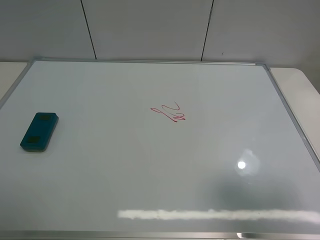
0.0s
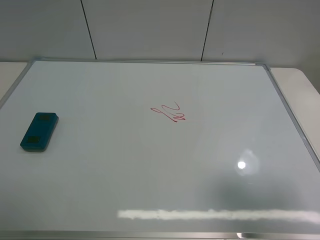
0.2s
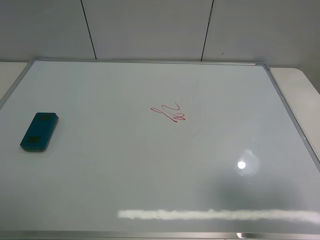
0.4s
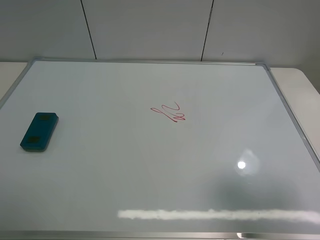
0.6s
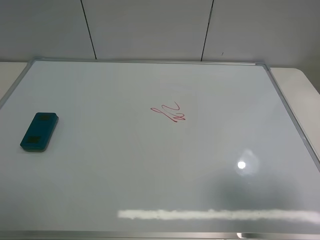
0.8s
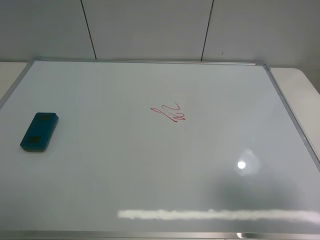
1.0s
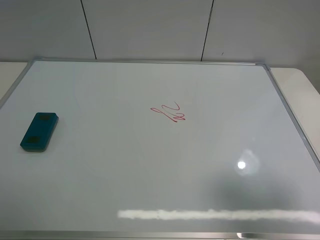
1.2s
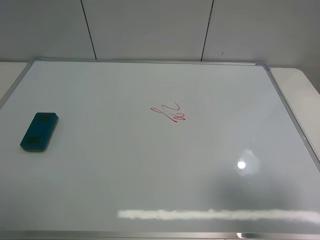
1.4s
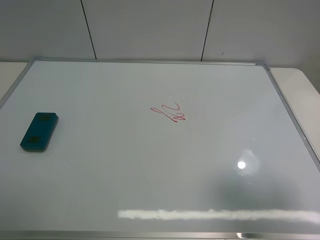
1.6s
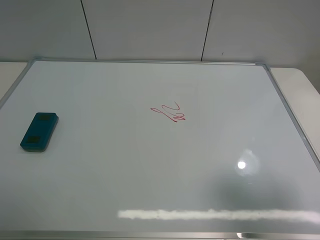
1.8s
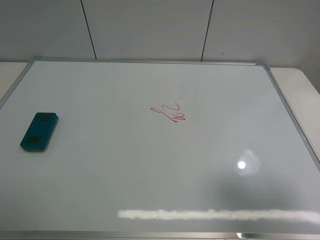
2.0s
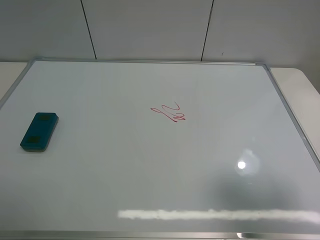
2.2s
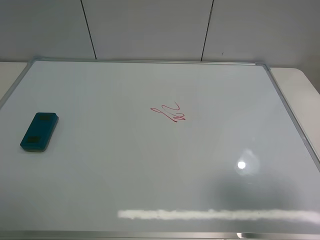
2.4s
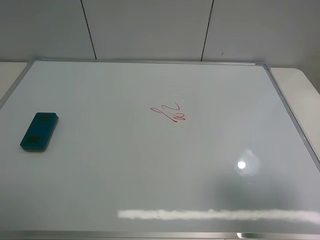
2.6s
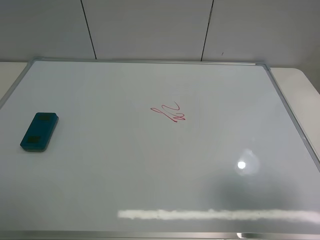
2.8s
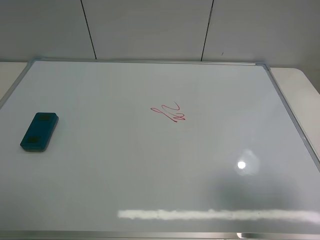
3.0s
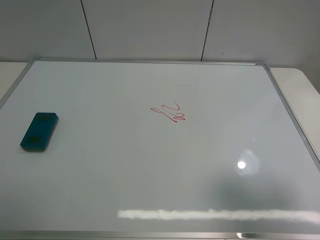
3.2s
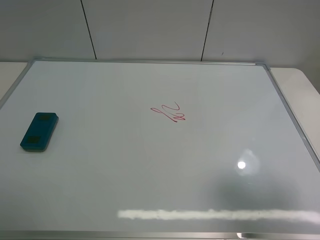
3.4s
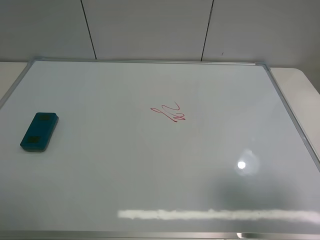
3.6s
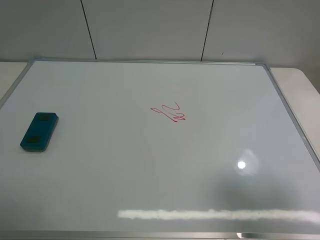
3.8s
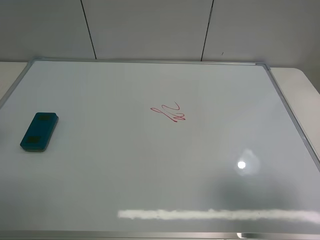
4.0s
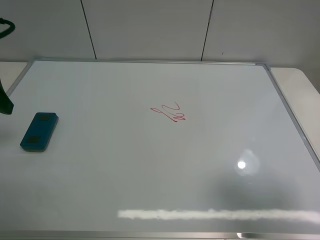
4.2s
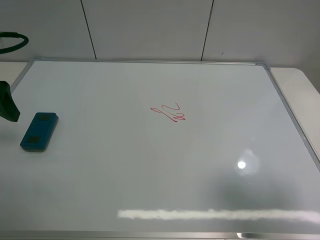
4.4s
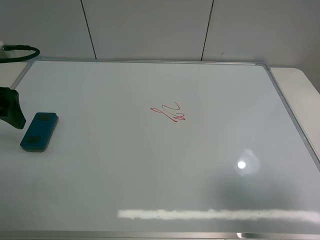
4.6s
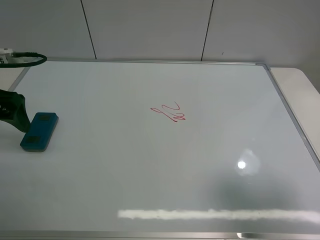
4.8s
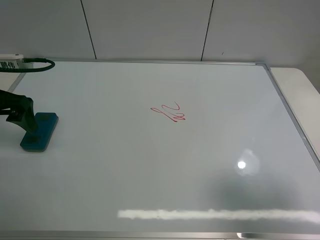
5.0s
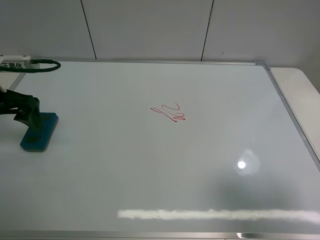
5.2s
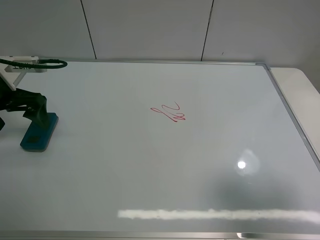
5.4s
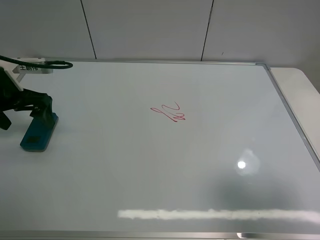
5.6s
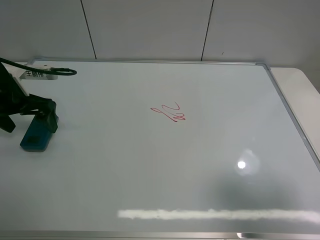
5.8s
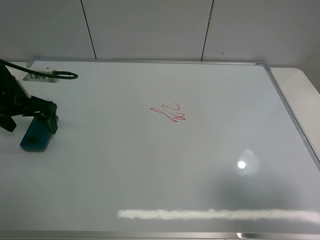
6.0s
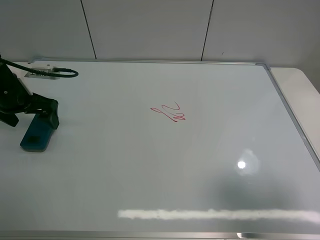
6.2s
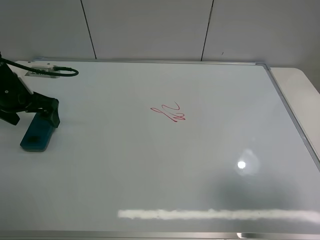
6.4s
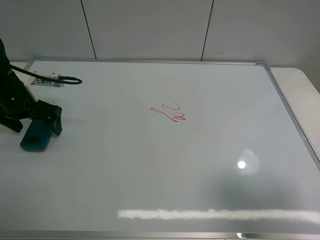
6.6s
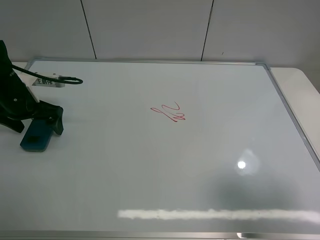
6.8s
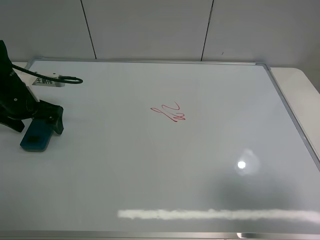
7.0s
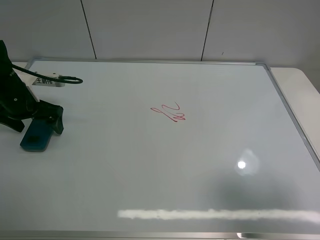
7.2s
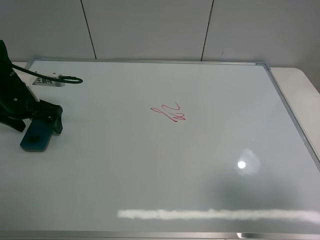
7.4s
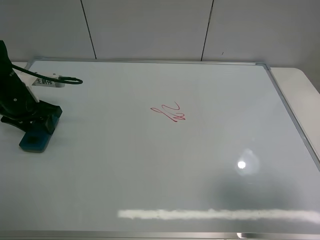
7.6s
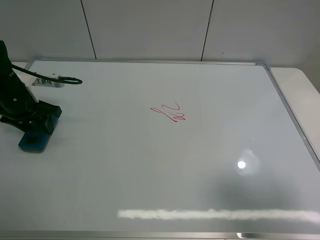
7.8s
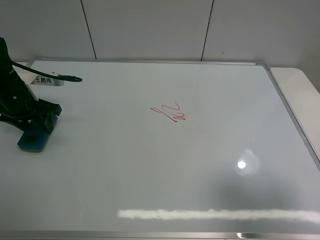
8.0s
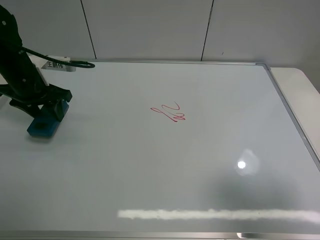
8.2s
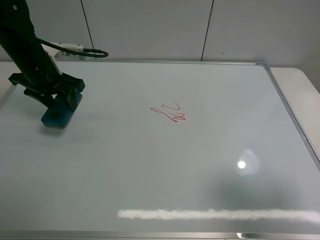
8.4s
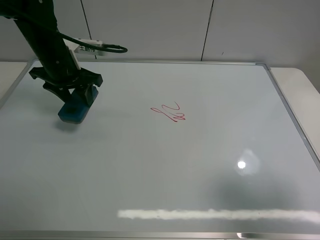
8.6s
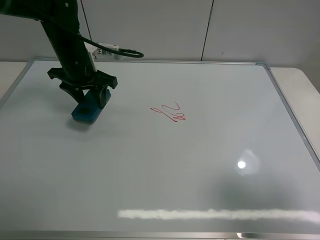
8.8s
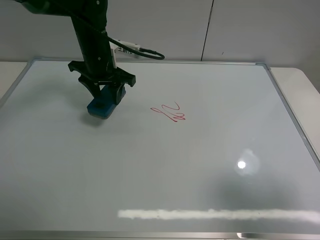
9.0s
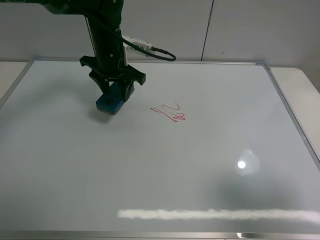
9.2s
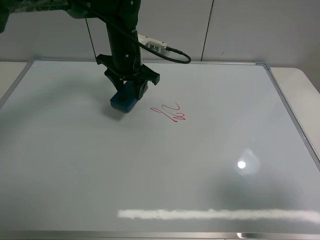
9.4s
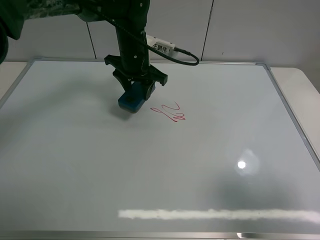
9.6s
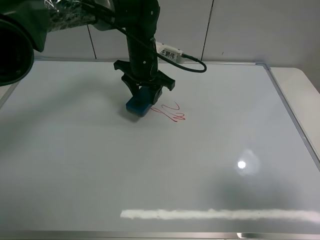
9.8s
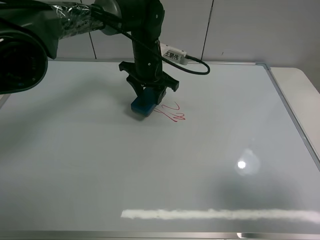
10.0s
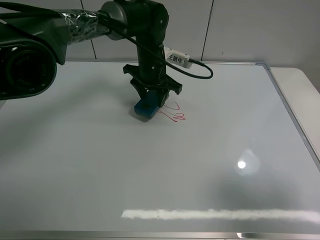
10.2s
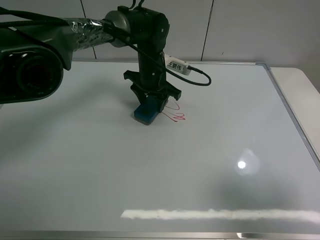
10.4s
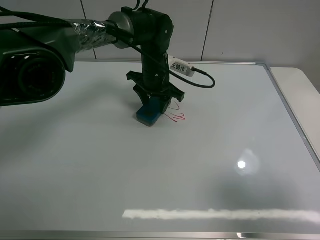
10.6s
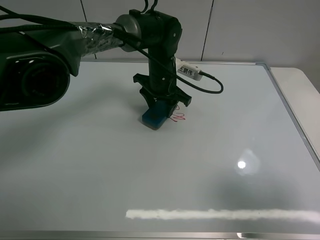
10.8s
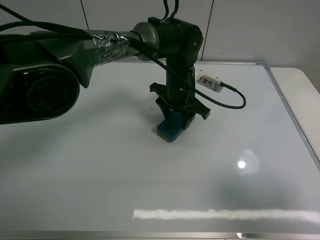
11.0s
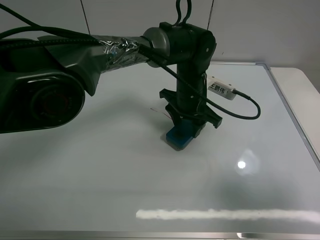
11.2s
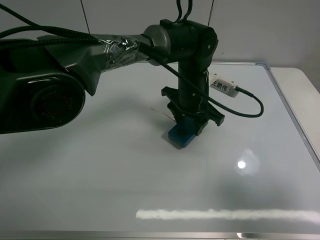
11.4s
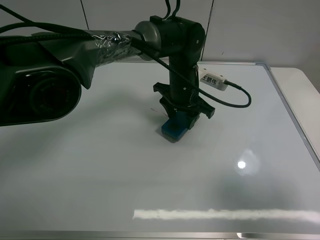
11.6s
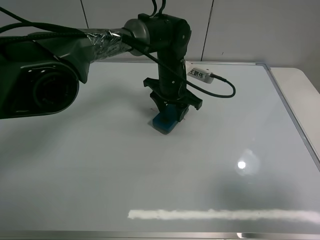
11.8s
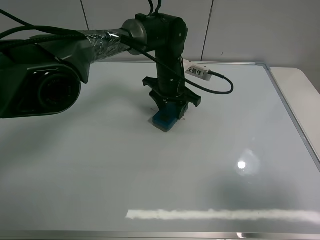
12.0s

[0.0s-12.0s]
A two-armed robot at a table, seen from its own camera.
Task of the whole recording: use the left claw to pick up the whiteboard eraser, wipe the notes on the whiteboard clean, and then put them back in place.
Step, 0.0s to 7.6s: Grasp the eraser with the left gripper.
0.0s to 3.0s: Neither gripper changes place.
3.0s to 4.4s: The left gripper shifts approximately 20 cm forward.
4.4s to 6.0s: The left gripper moves downward and forward, about 15 cm.
6.0s to 7.6s: The left gripper closes up.
7.6s to 9.0s: The left gripper goes some 20 cm to the right and forward.
9.0s to 10.4s: The left gripper shifts roughly 10 cm to the right and downward.

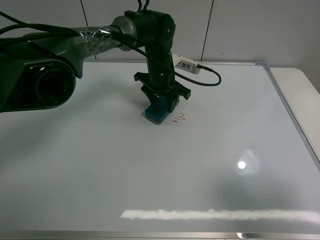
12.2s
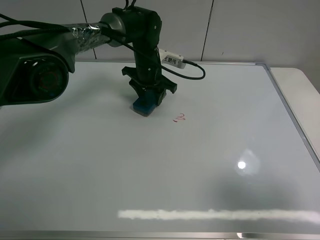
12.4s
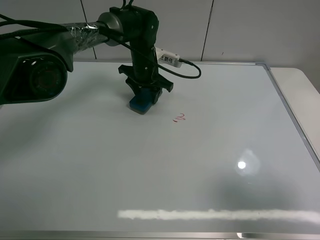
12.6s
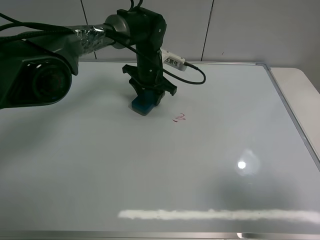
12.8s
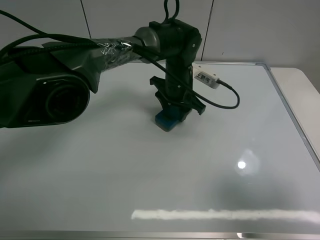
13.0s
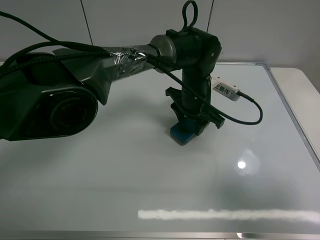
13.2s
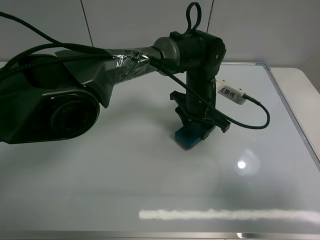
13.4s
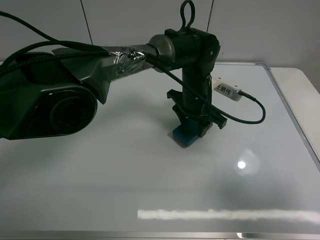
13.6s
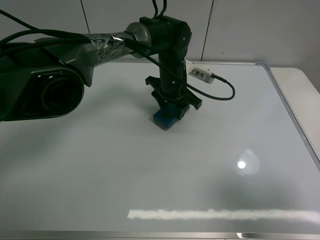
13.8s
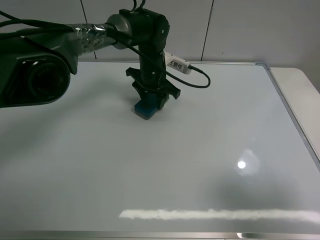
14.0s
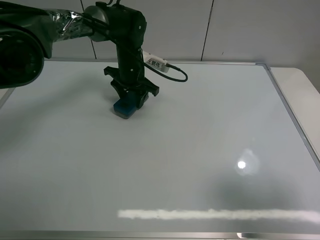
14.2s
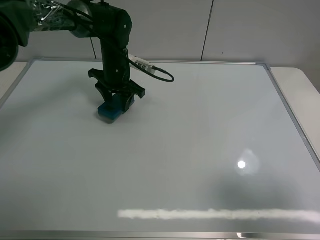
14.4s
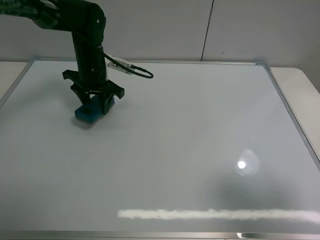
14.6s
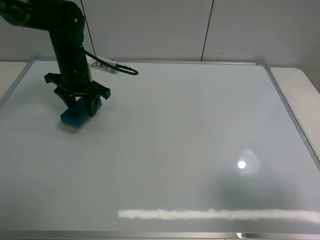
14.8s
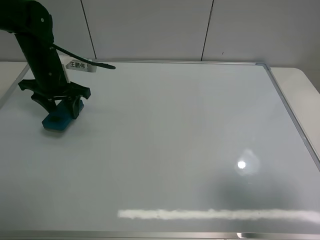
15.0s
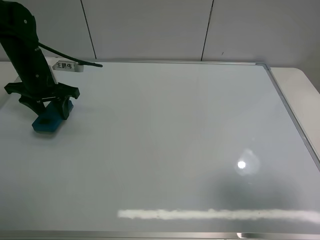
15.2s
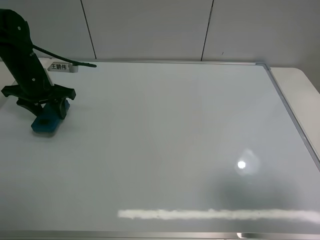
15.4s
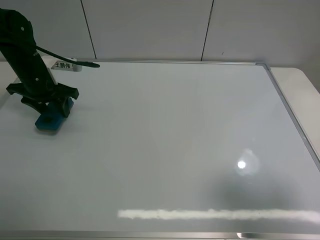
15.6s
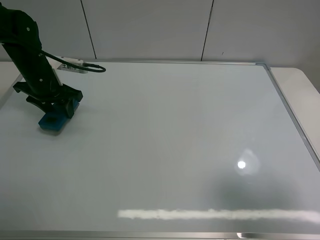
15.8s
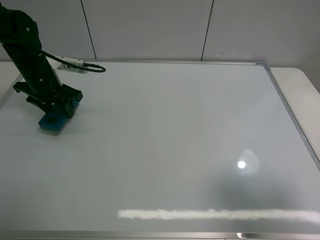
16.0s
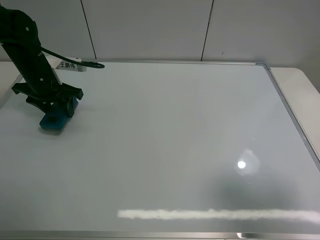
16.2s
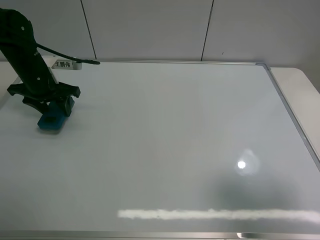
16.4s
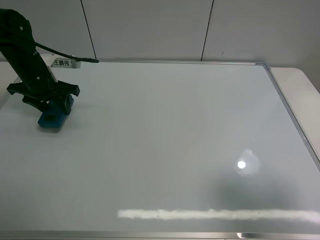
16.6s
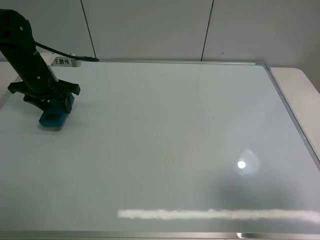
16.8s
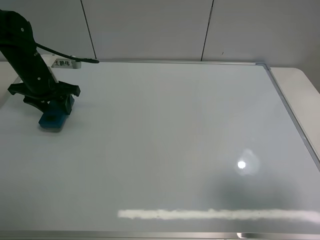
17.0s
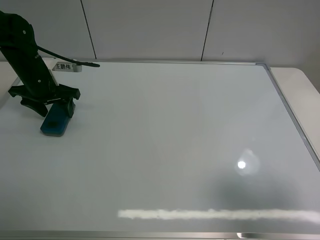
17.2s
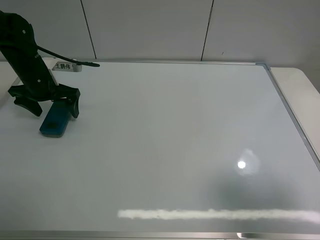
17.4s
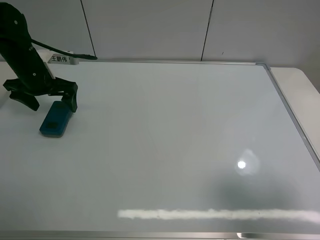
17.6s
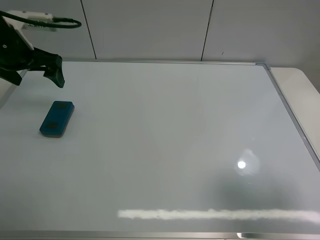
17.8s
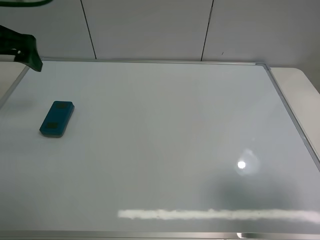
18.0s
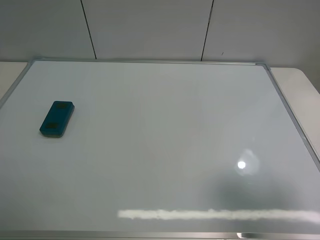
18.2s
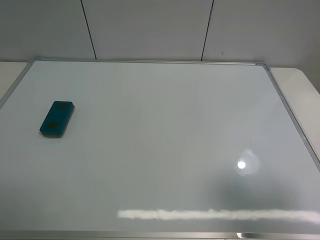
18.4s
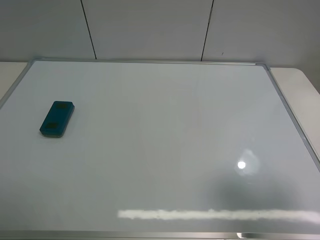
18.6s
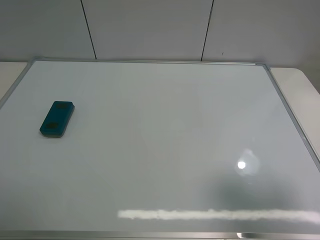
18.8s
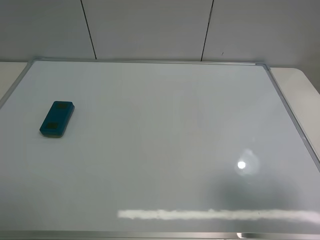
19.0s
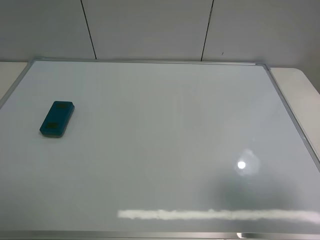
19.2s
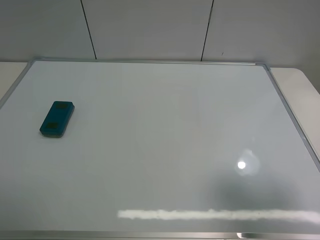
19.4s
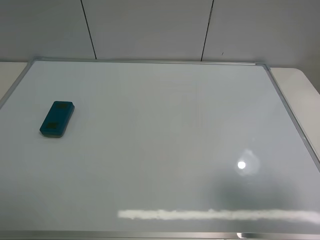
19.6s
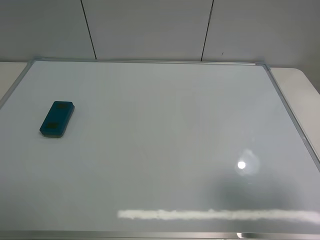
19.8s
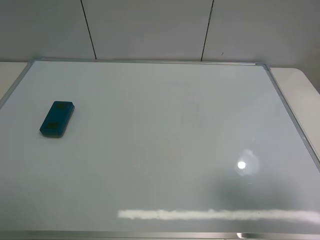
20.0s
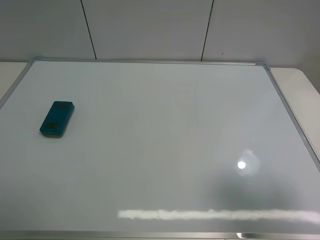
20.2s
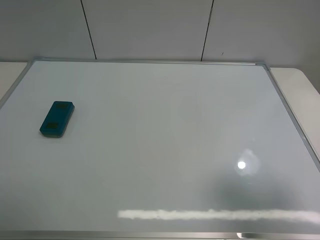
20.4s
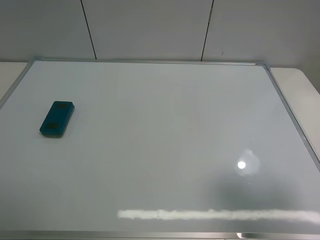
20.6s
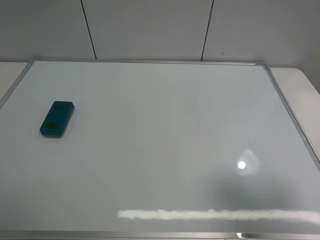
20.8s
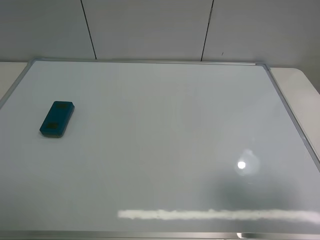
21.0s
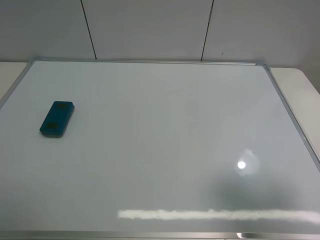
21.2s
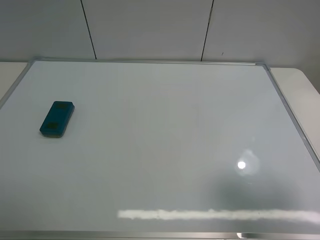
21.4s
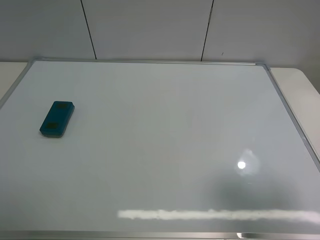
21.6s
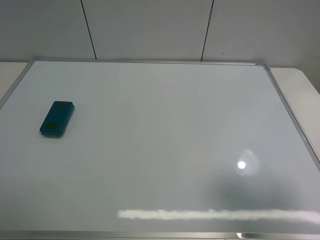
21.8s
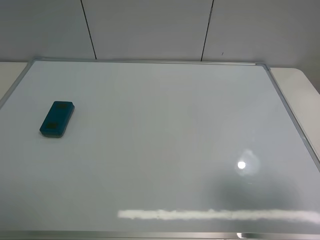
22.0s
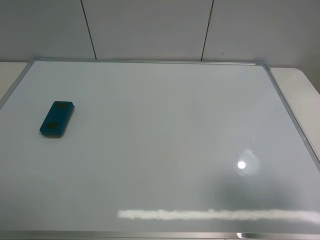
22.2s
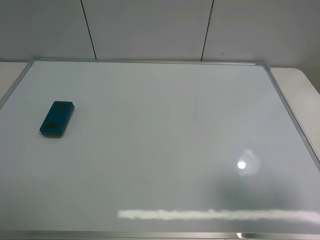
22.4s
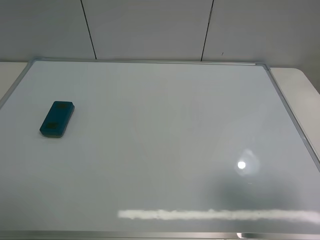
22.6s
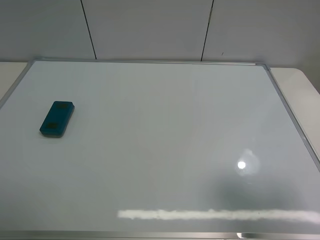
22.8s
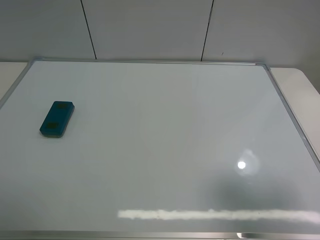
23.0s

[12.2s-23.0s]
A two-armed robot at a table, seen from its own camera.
Task of the whole recording: use the left claw to pick up the whiteboard eraser, wipe the notes on the whiteboard clean, and then put them back in place.
Step, 12.2s to 14.4s: Grasp the eraser and wipe the blackboard with the left gripper.
Step, 14.6s to 17.2s: Place the eraser with the left gripper.
12.2s to 13.8s: The left gripper travels to the right and back again, about 10 cm each way.
13.8s to 15.2s: The left gripper goes roughly 30 cm to the left.
15.2s to 16.8s: The grippers move only a little.
16.8s to 18.4s: The left gripper travels backward and upward by some 30 cm, and opens up.
21.4s to 23.0s: Both grippers stay put.
